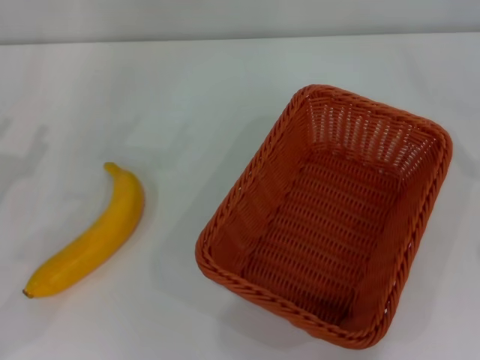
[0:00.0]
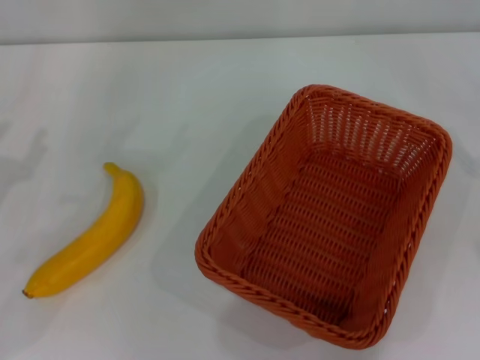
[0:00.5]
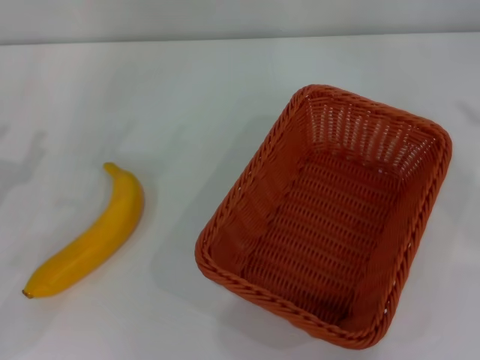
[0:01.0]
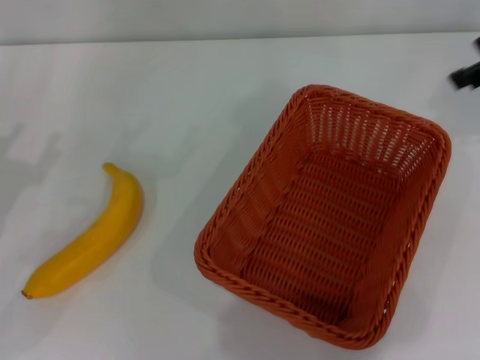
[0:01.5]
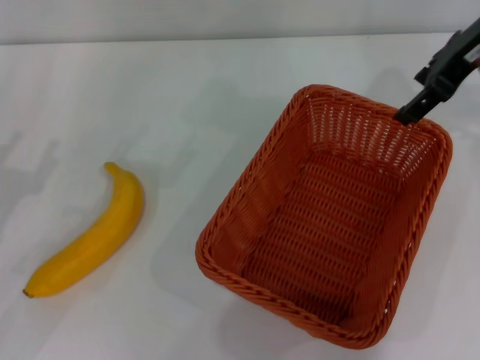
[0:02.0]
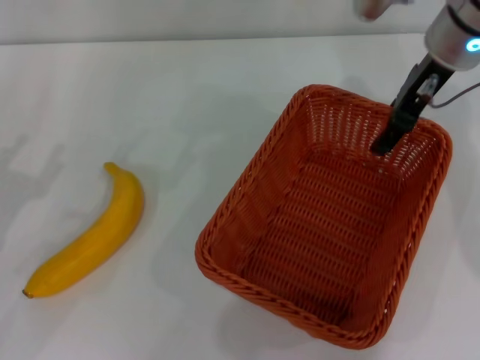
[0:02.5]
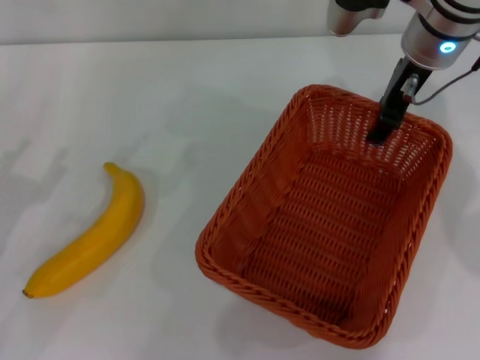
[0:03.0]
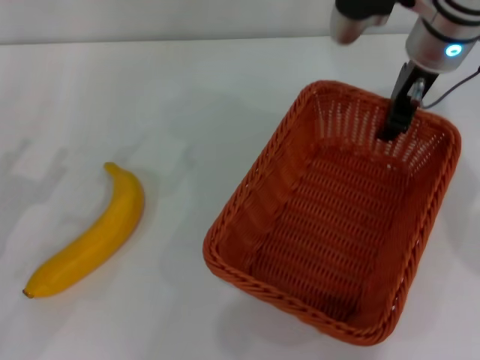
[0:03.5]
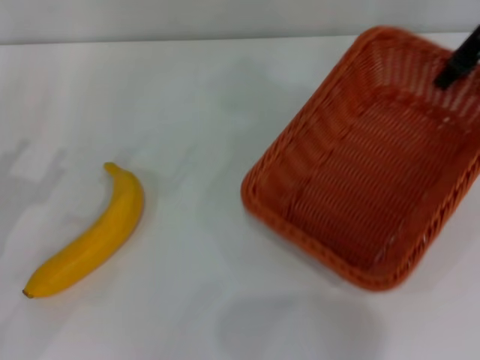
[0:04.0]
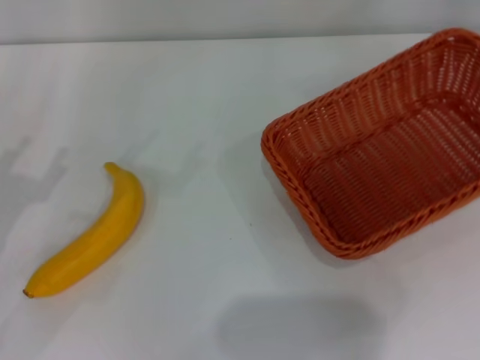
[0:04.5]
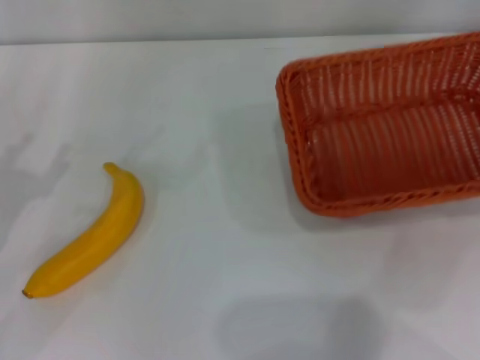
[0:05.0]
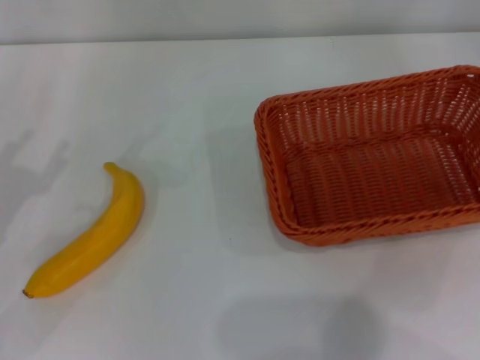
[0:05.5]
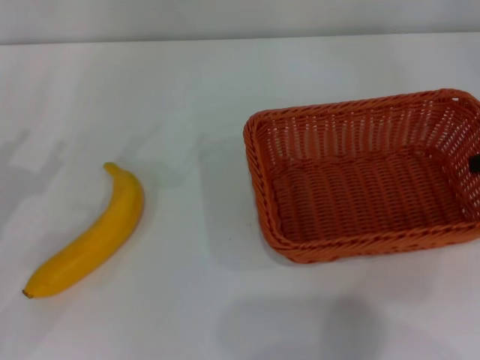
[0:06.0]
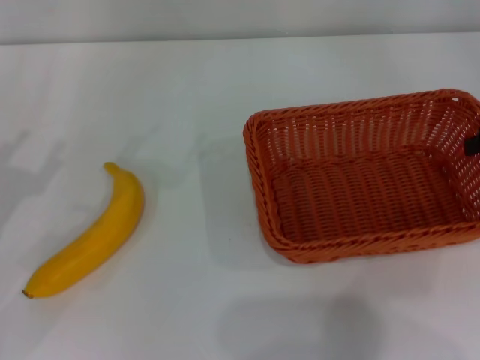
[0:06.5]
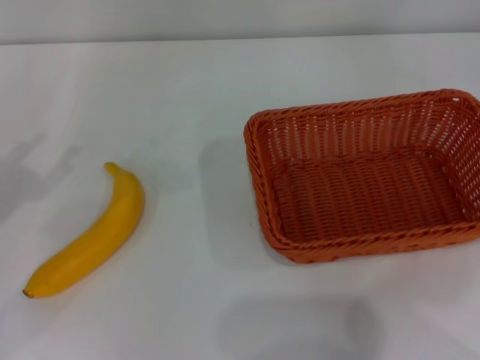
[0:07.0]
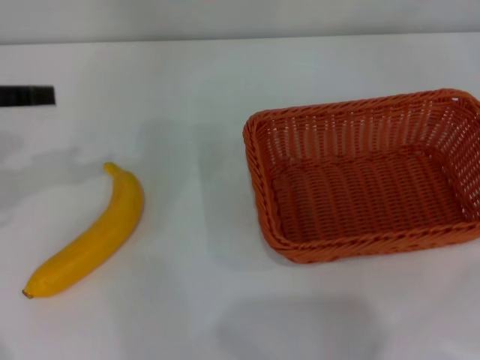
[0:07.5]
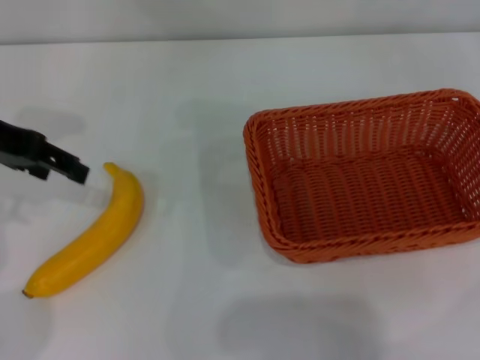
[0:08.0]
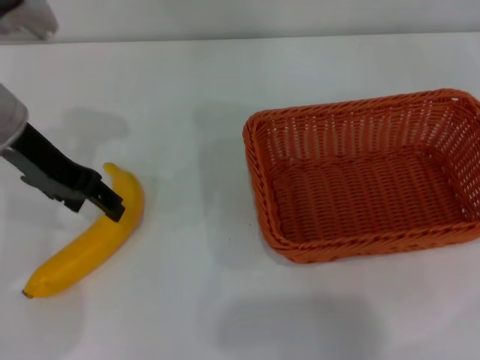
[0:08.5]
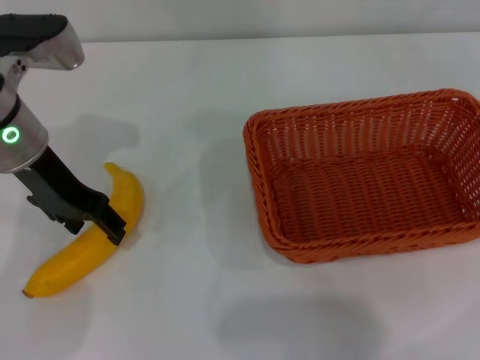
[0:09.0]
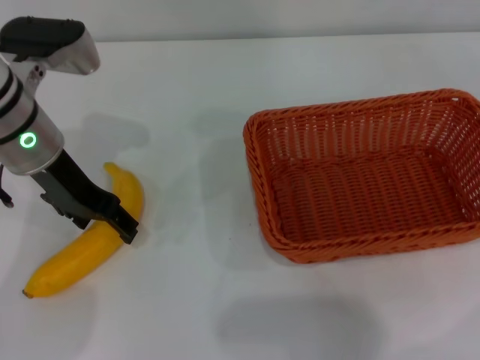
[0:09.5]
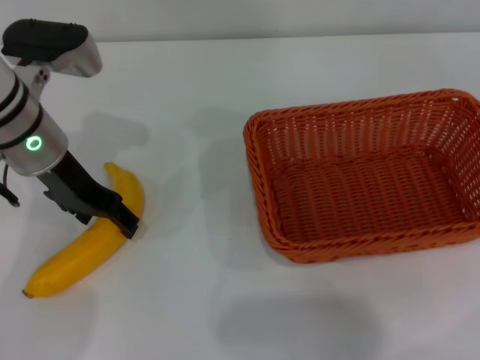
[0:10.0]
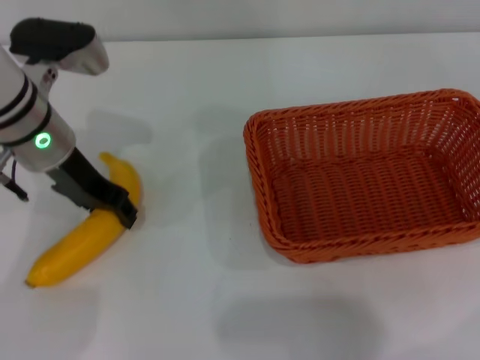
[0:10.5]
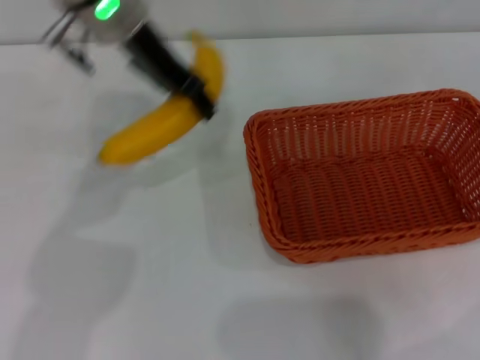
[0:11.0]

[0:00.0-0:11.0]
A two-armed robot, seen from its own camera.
Step, 0:00.0 to 0:03.5: Pick up the light basket with the right gripper.
Step, 0:04.0 to 0:07.0: Place the light basket in the center of view with the right gripper.
Step, 0:07.5 to 0:10.5: Pick up the banana with the left gripper.
0:00.0 to 0:02.0: The right gripper travels to the left, forward and upward by about 30 cm.
0:02.0 to 0:03.5: The right gripper heads to the left, covering about 5 cm, and closes up.
0:03.5 to 0:05.5: The right gripper goes some 25 cm to the right and backward, and closes up.
0:05.5 to 0:07.5: The right gripper goes about 10 cm to the right and upward, and opens its fingers; the left gripper shifts approximately 15 cm upward and forward.
0:07.5 to 0:09.0: The left gripper heads to the right, forward and downward, covering roughly 15 cm.
0:09.0 to 0:11.0: The left gripper shifts approximately 15 cm to the right, upward and forward, and closes its fingers.

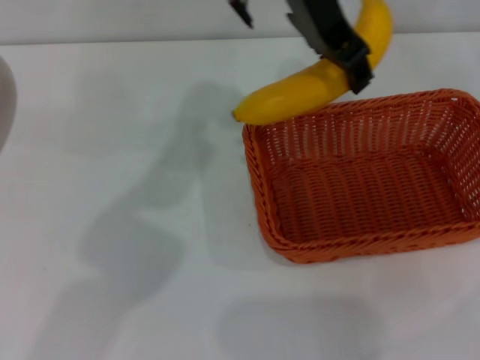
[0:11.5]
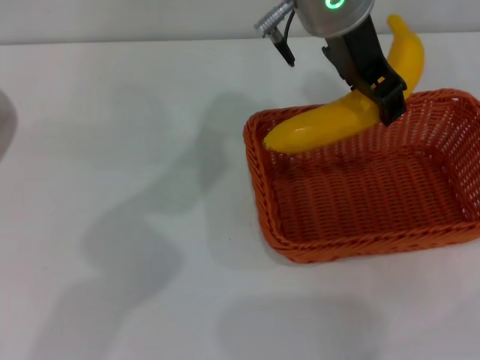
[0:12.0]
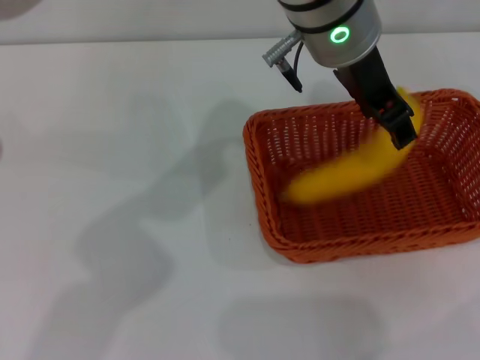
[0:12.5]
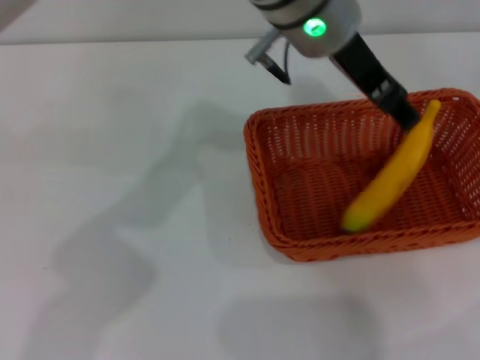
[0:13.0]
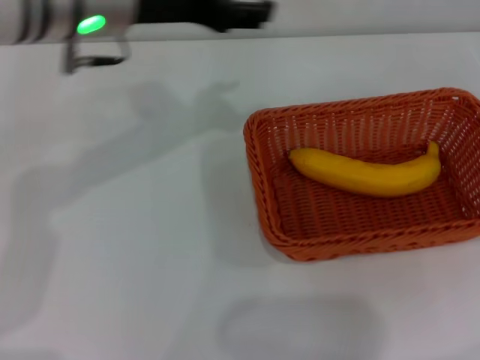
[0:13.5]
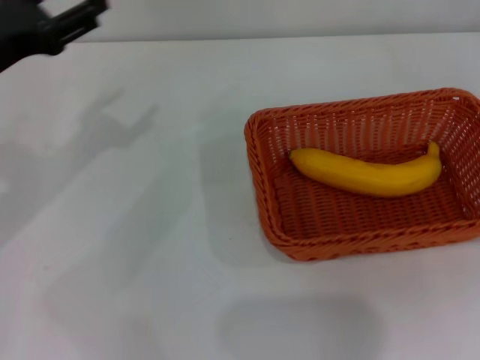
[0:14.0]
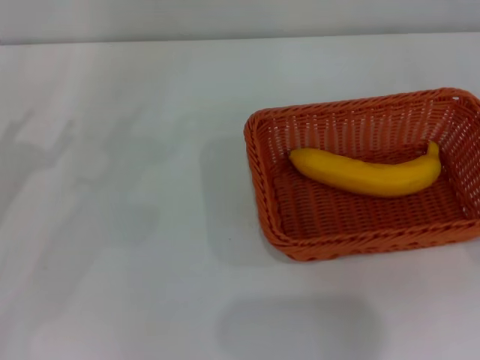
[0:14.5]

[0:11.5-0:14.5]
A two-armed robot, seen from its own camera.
Step, 0:11.5 to 0:13.0: Place the banana into the light basket with the left gripper.
0:11.5 to 0:13.0: The left gripper opens up.
0:13.0 to 0:14.5: The left gripper shifts approximately 35 cm to the left. Meanwhile the right gripper is displaced backward and downward by approximately 10 cm.
